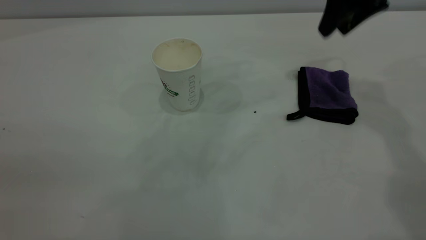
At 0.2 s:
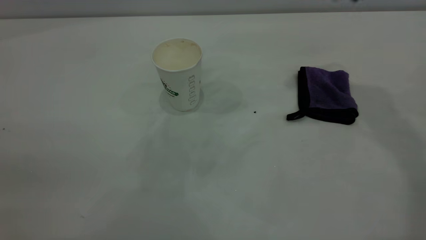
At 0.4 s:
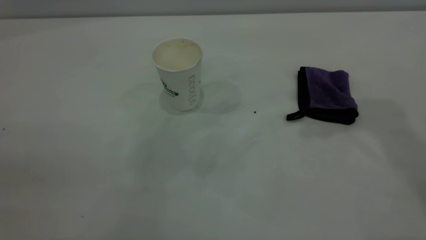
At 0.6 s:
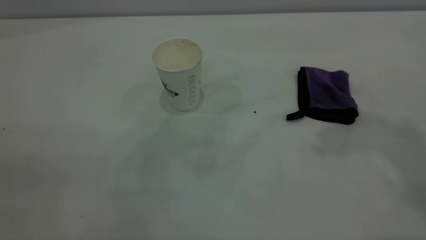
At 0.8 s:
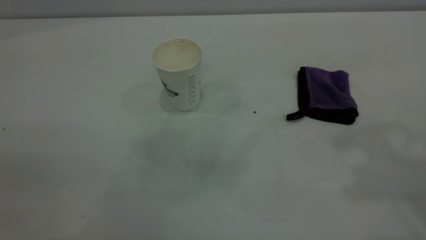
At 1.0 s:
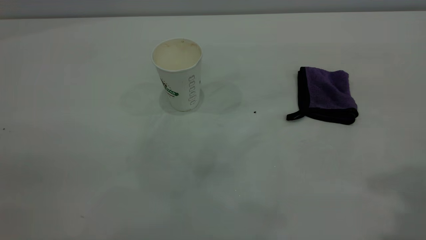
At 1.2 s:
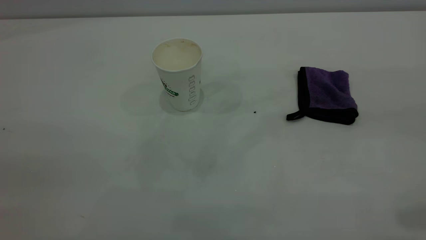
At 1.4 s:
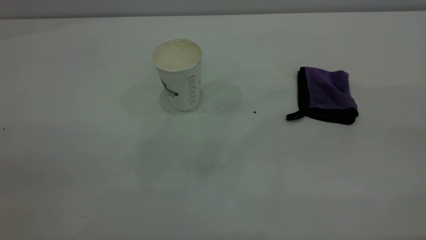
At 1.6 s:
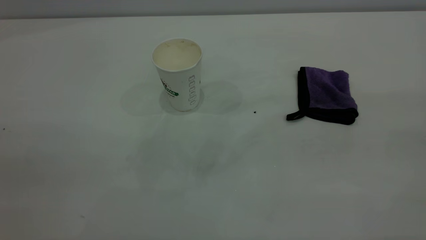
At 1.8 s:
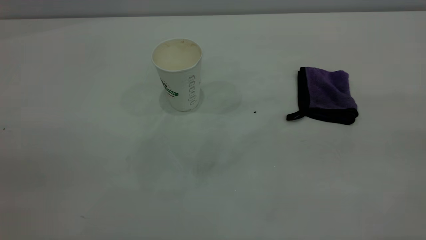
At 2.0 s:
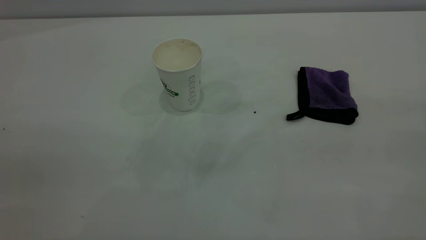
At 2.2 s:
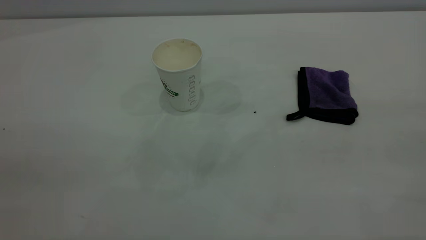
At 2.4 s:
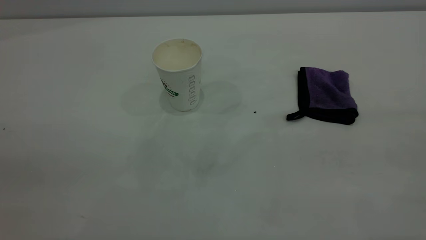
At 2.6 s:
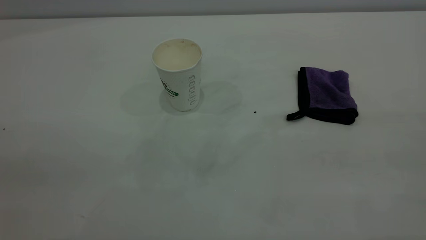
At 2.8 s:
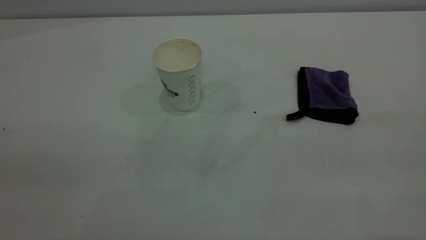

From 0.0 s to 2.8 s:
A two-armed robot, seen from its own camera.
Task of the whole recording: the left gripper pick up the fallen cup and place it upright, the right gripper grasp the purple rag and wipe the coffee stain on the table, the right gripper put the purple rag back in its original position.
From 0.0 s to 1.4 s: The right gripper goes roughly 35 cm backward.
